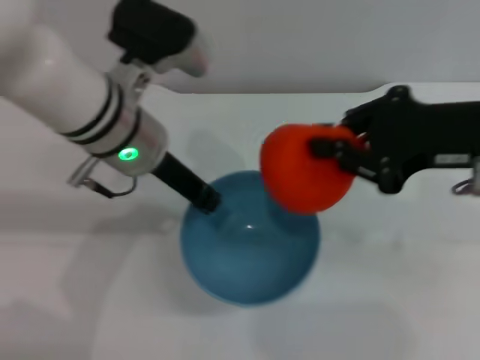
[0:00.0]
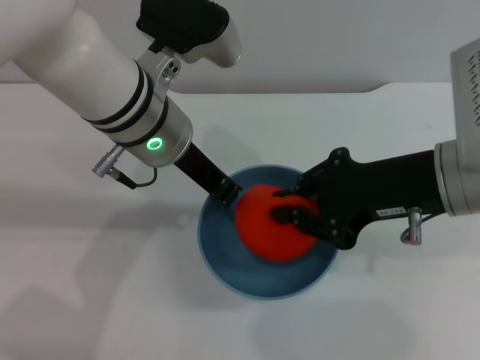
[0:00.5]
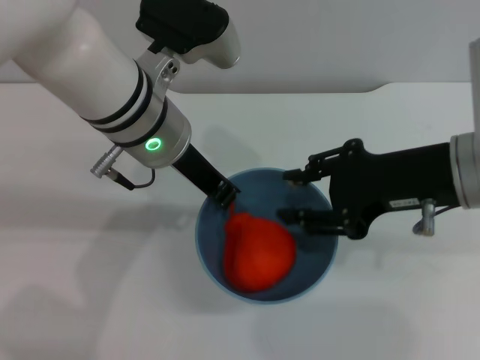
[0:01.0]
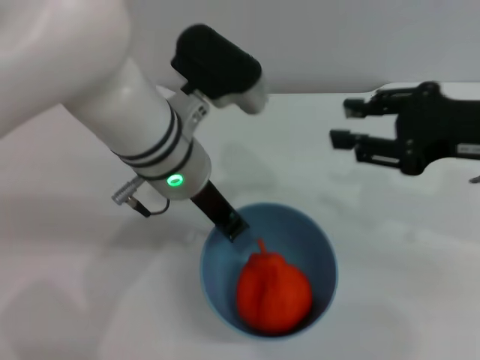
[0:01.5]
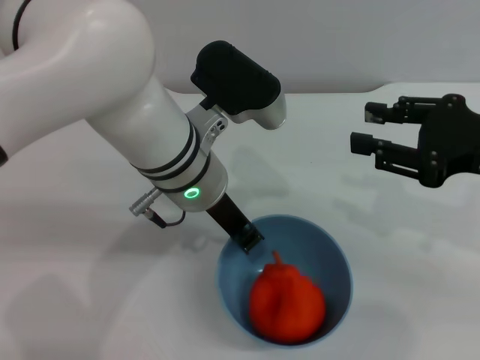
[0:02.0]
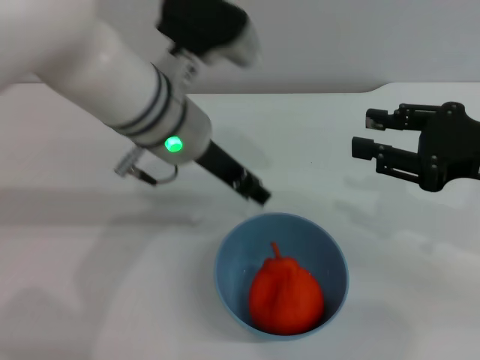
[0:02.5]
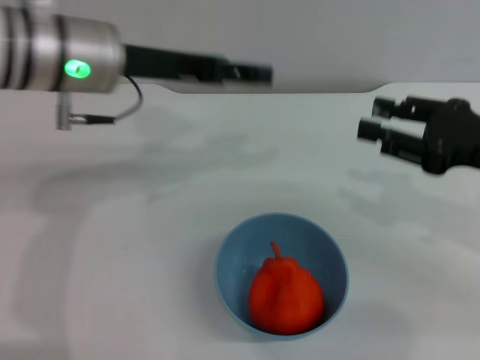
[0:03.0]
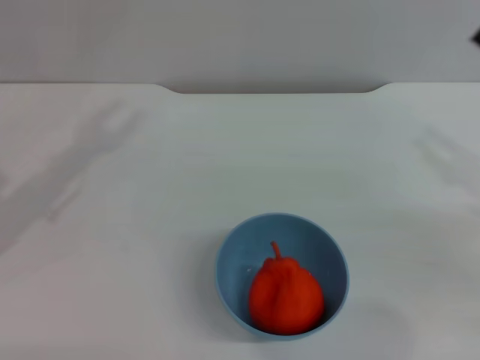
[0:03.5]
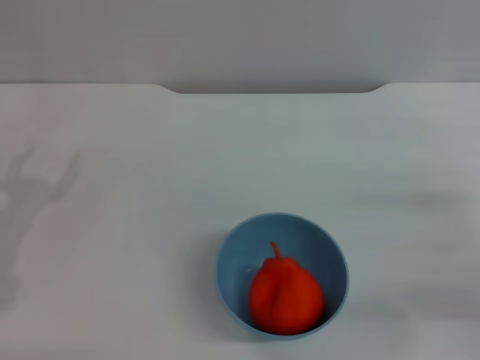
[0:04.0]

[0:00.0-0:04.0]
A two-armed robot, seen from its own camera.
Task of the whole recording: put the orange into the blue bowl and pour it out repeatedly.
Step, 0:00.0 to 0:01.0: Place the orange into the bowl.
Step, 0:01.5 to 0:02.5: Place the bowl on the table.
0:00.0 to 0:02.0: The right gripper moves approximately 5 cm, and opens; the left gripper shifts roughly 5 cm to the right.
0:02.0 to 0:04.0: The left gripper is displaced to the left by roughly 25 cm, and opens. The right gripper heads downward and to the right, covering some 15 cm.
